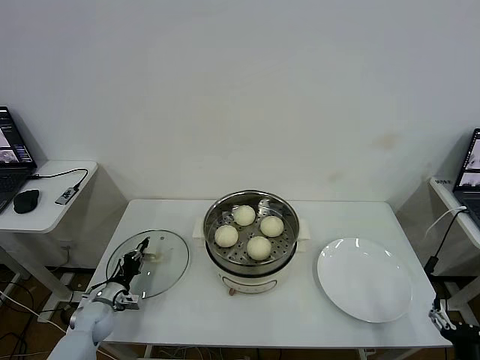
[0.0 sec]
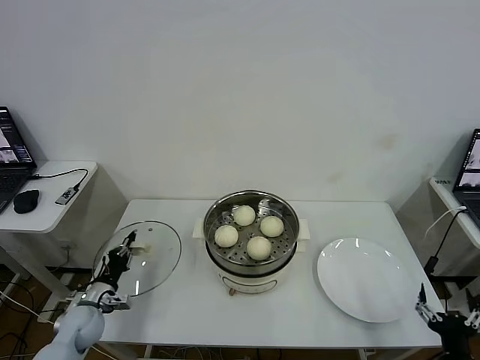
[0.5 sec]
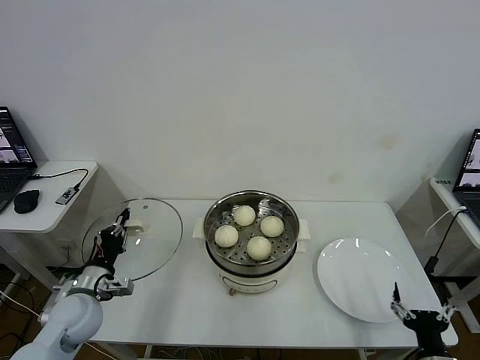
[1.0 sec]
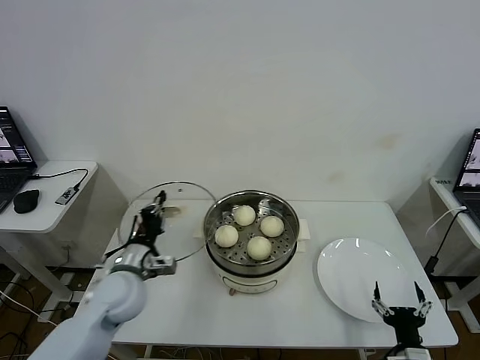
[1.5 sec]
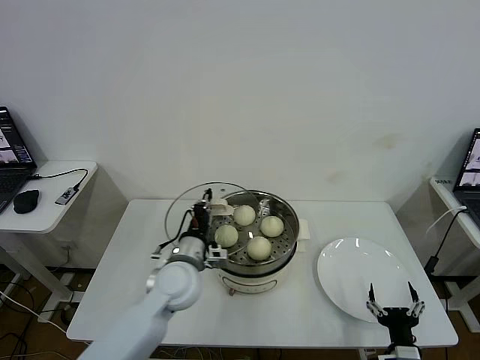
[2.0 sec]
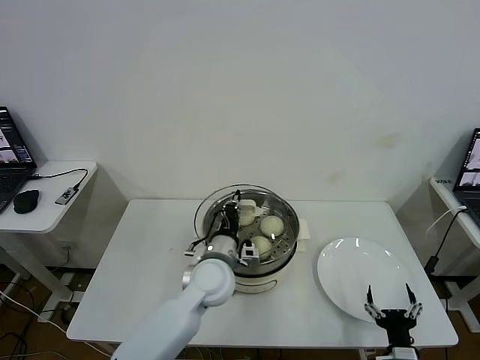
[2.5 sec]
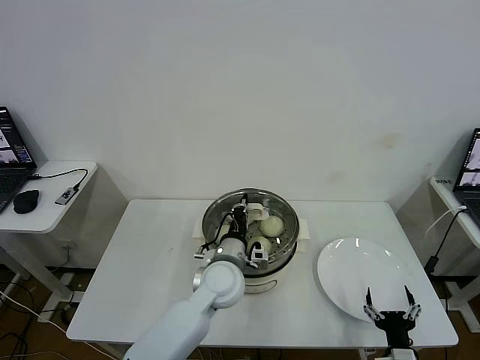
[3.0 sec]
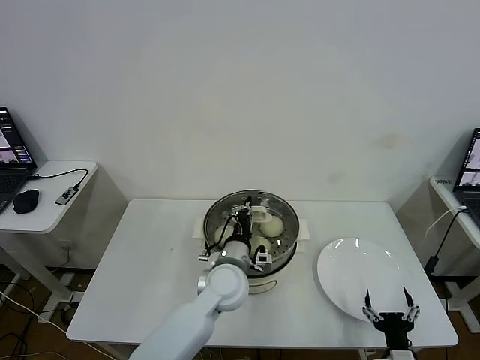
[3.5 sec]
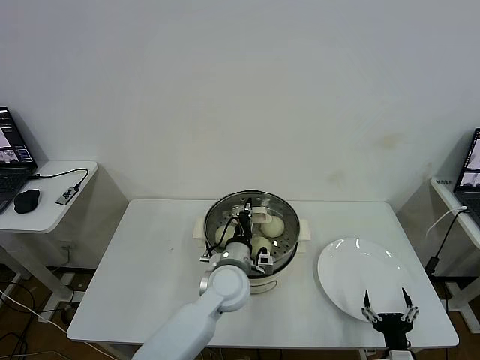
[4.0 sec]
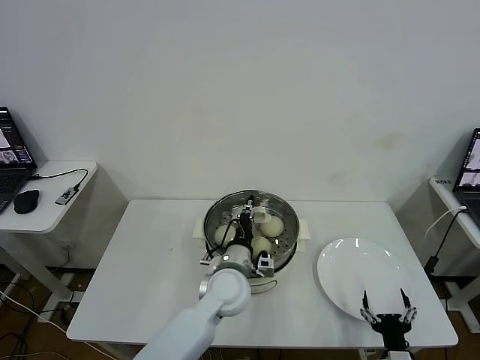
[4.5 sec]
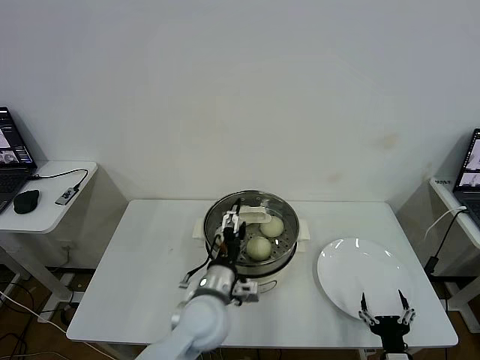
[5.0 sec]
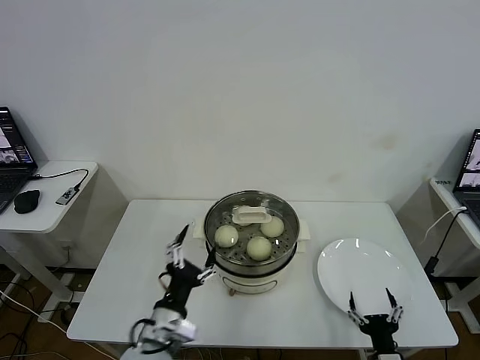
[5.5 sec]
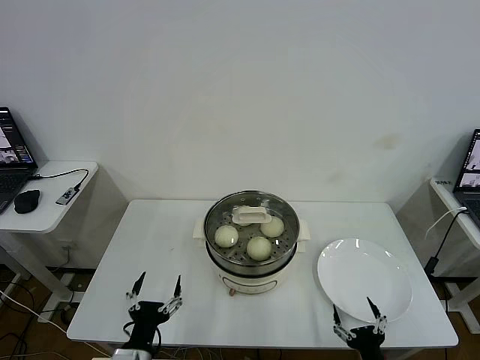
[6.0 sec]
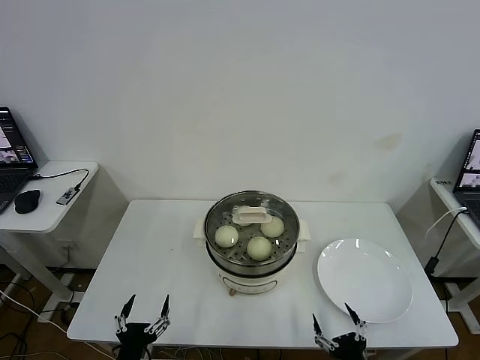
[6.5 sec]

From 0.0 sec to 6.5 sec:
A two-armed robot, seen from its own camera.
Task of the whole recording: take steamed baozi put them in steamer then cover it.
Step, from 0.5 sec to 4.5 sec: Place the pot lid on the steamer with left gripper.
From 0.0 sec to 2.0 sec: The right gripper goes roughly 5 cm to the left. Meanwhile the left gripper shifts approximately 35 cm to the right and upward.
From 2.0 sec to 4.5 sec: The left gripper heads to the right, covering some 10 cm.
From 4.5 sec to 6.5 sec: The left gripper shifts approximately 30 cm backward and to the left, and opens up. Meanwhile the right gripper shifts some 5 cm to the left.

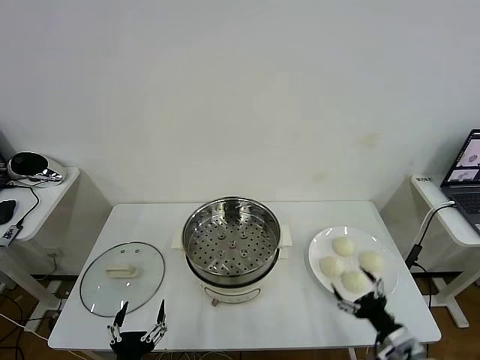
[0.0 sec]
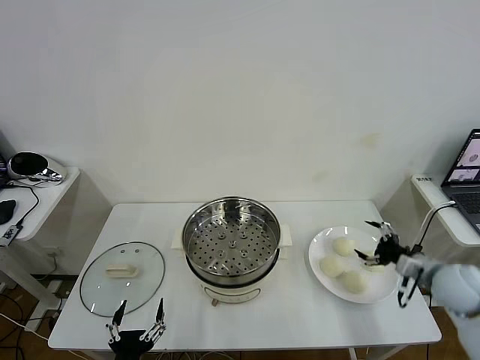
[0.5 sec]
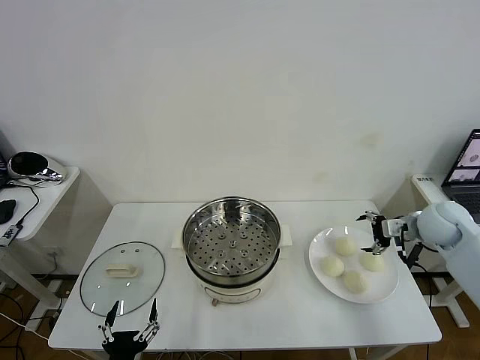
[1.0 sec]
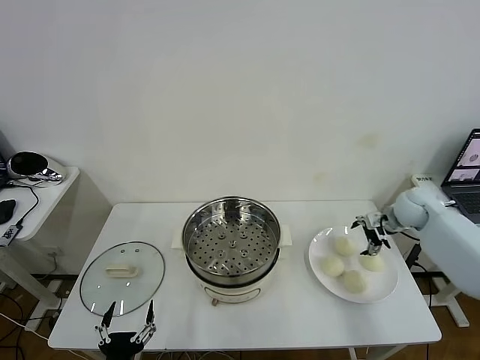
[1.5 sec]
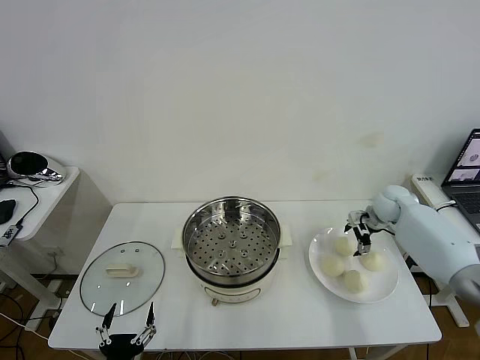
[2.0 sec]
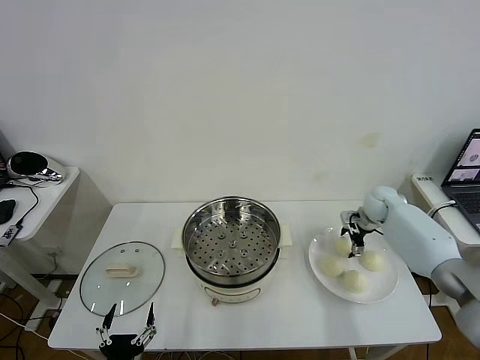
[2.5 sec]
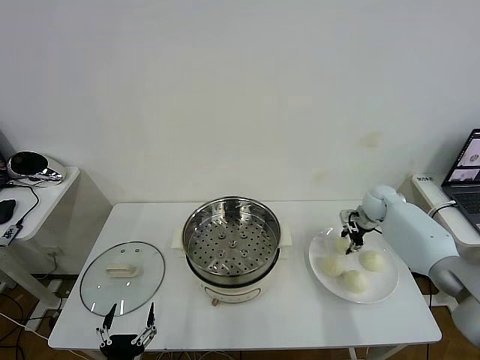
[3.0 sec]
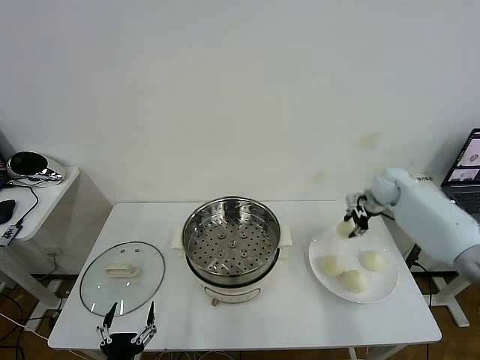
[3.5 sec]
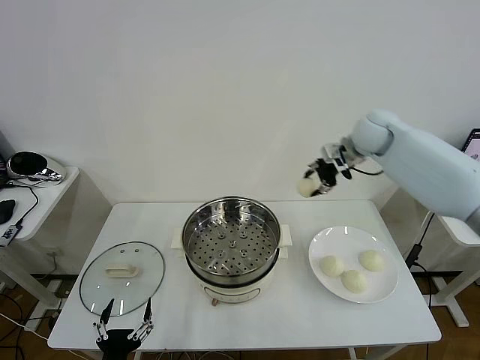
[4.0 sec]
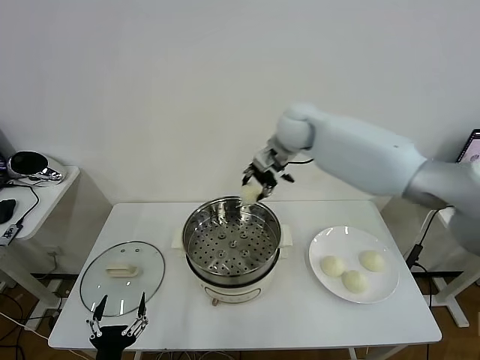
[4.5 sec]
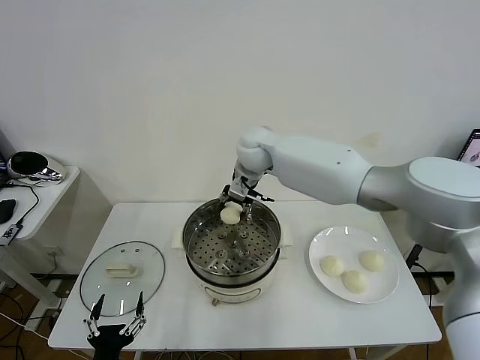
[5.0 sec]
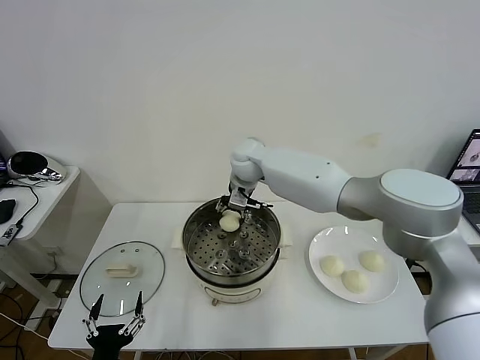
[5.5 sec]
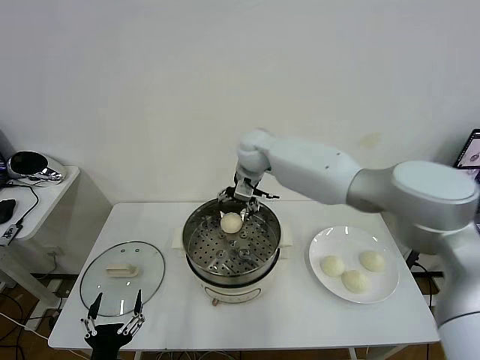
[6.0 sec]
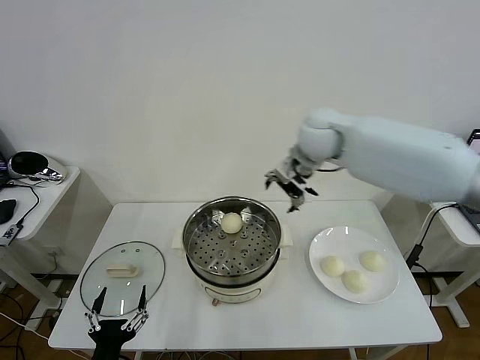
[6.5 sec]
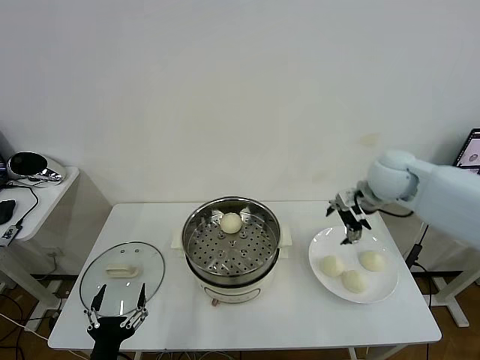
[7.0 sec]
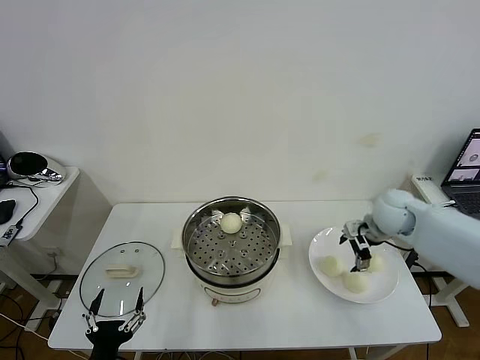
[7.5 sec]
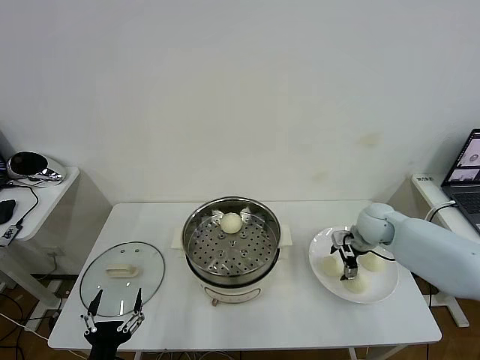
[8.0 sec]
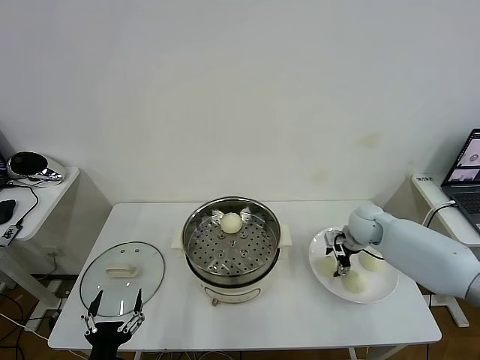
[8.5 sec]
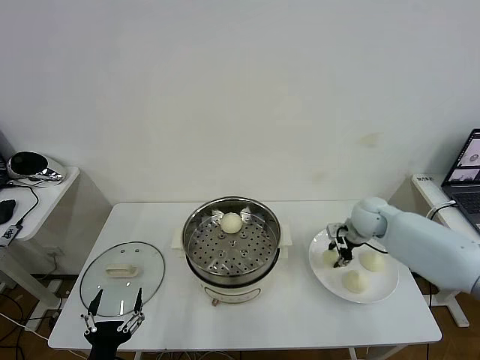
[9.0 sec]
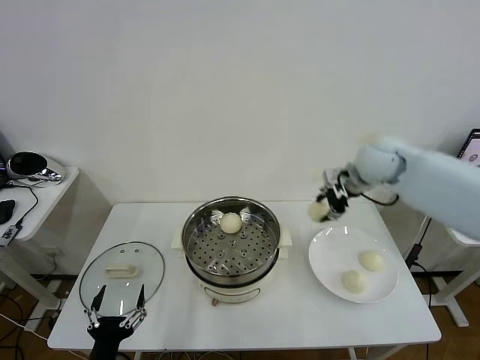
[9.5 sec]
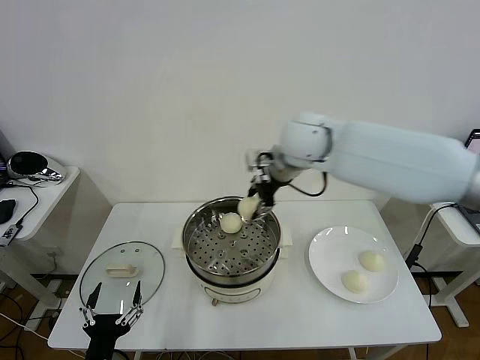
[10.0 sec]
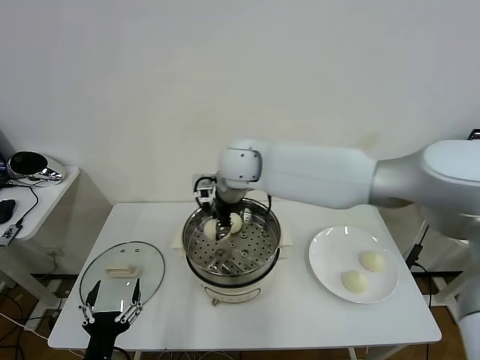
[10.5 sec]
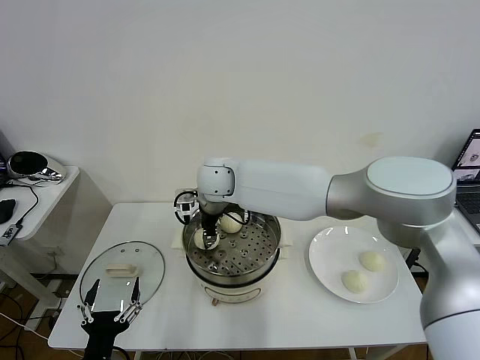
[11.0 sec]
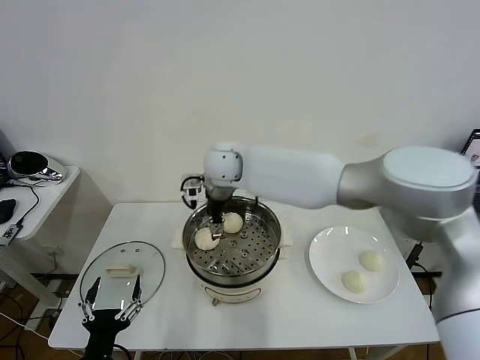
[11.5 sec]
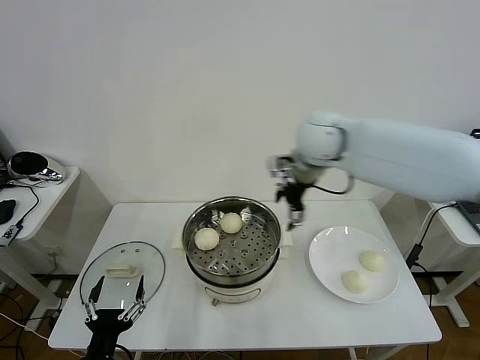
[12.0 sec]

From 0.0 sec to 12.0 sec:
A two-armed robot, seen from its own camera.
Task of the whole recording: take steamed baozi put them in steamer then cover it.
Step, from 0.0 sec to 2.5 sec: Grasp the baozi in the plate with right gripper.
Step, from 3.0 sec to 5.5 sec: Place the baozi on the steamer with right gripper.
Step, from 6.0 sec to 8.5 sec: Grasp the baozi in the plate with right gripper.
Step, from 9.0 sec to 11.0 sec: Place the baozi on the steamer with right gripper.
From 2.0 sec to 4.0 sec: The right gripper moves upward and to the left, approximately 30 cm, and closes.
From 4.0 sec to 6.0 sec: The right gripper shifts some 20 cm to the left, and opens.
From 6.0 sec to 8.0 sec: The right gripper travels to the right and downward by about 35 cm.
From 8.0 sec to 10.0 sec: The right gripper moves to the left and upward, roughly 35 cm, and closes its fingers.
From 10.0 sec to 12.0 sec: The right gripper is displaced to the right by about 10 cm, and opens its fingers.

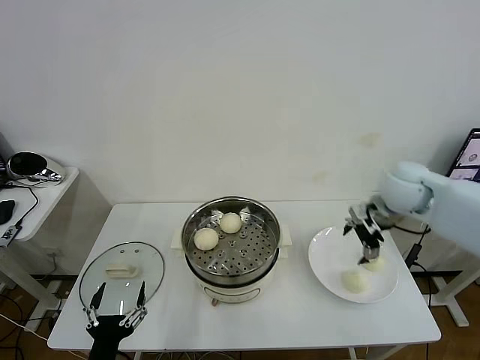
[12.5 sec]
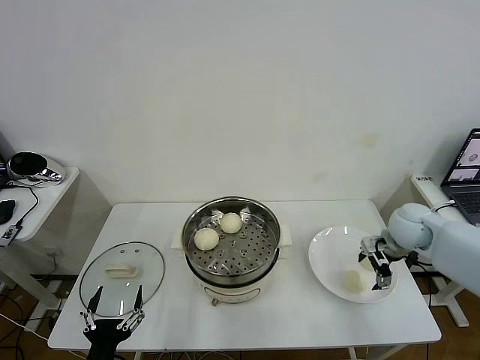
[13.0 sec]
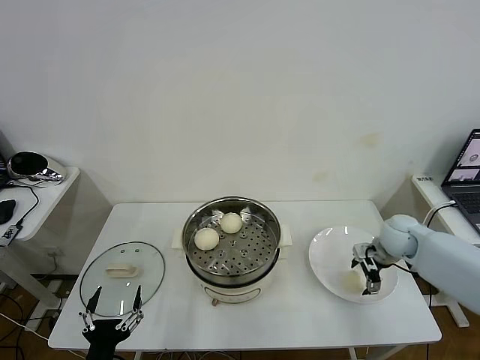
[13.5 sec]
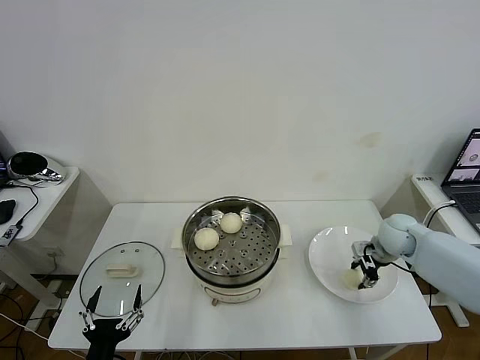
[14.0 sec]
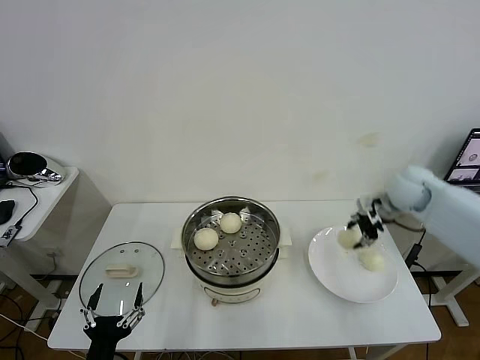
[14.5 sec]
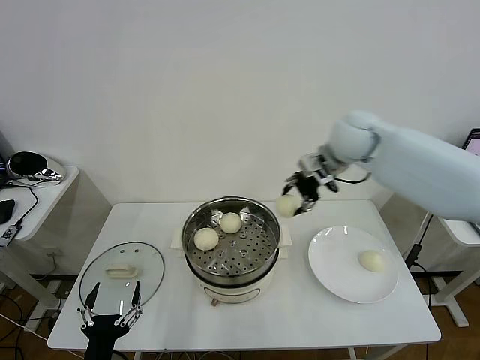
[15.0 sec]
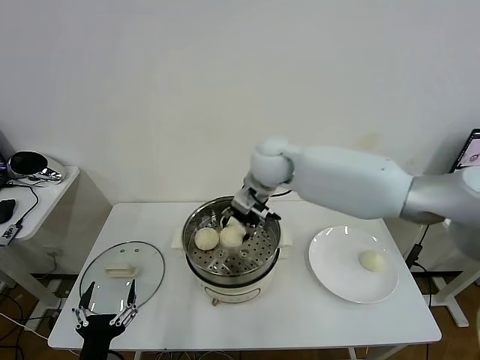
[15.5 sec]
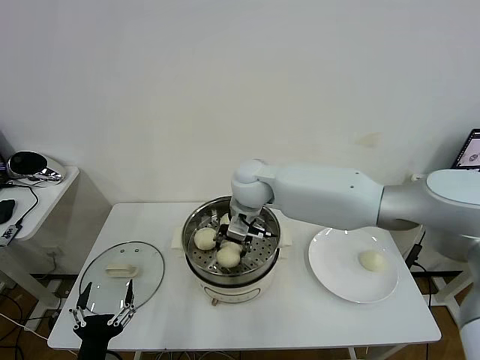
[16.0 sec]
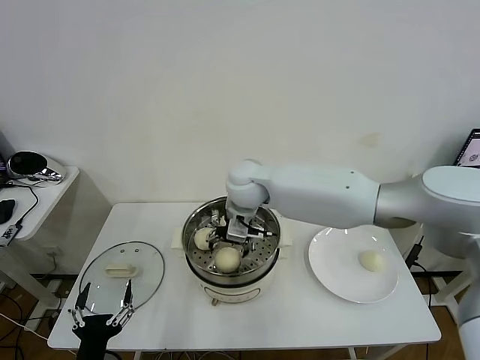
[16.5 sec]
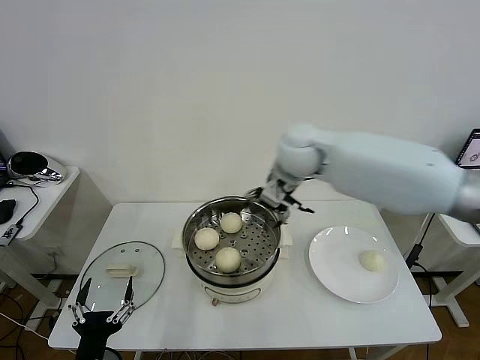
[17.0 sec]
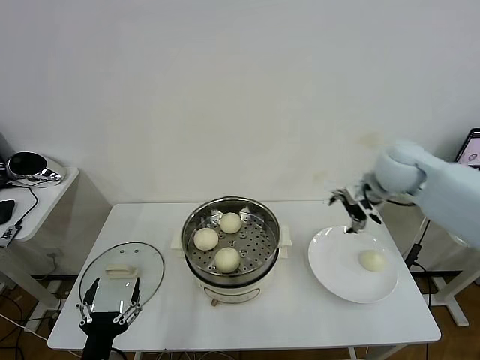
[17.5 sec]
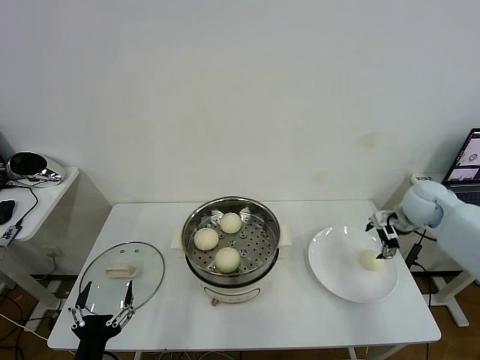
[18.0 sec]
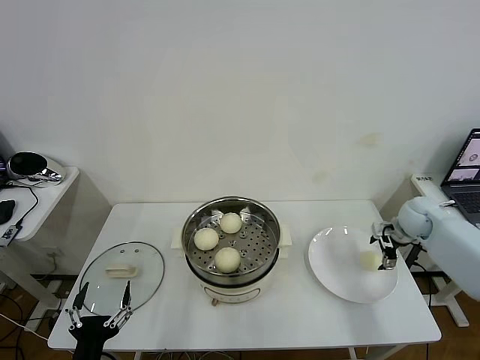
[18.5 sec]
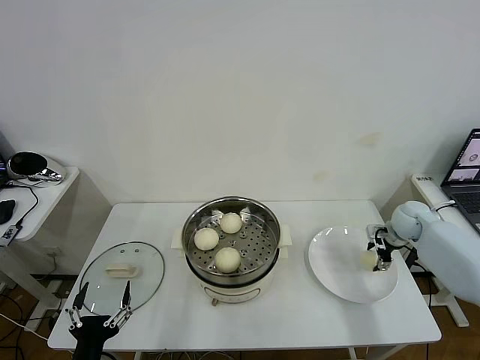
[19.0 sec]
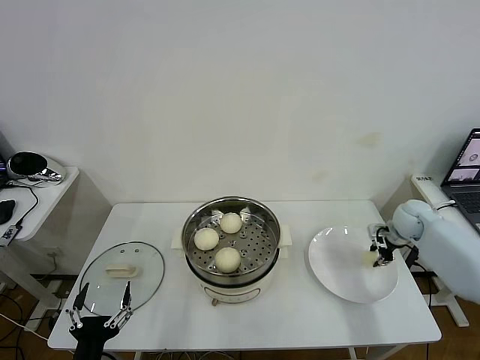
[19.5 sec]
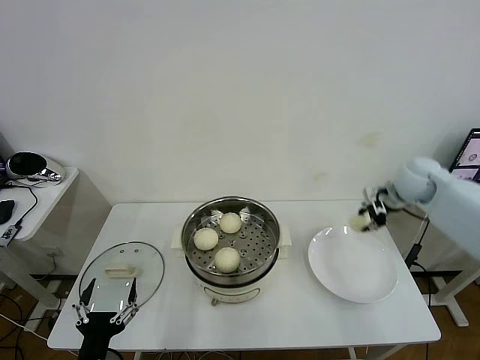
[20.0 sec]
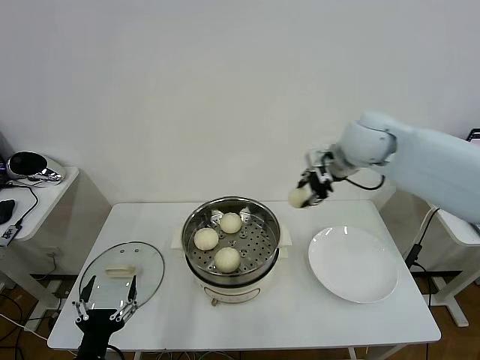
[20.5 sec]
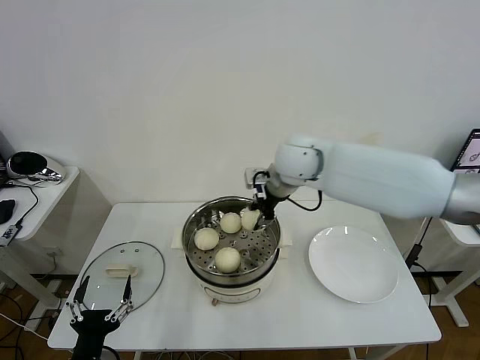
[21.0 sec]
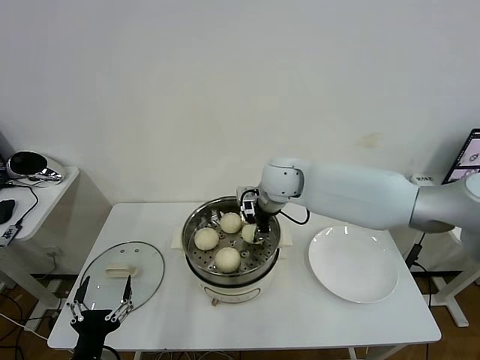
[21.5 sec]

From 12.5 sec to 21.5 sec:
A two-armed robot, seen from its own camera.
Task of the whole recording: take steamed baozi put them in steamer then cover it.
Step, from 12.5 sec to 14.0 sec: Grasp the baozi in the plate with right gripper.
Step, from 14.5 sec to 16.5 sec: Place the baozi on the steamer with right gripper.
Step, from 17.0 sec to 19.0 sec: Grasp the baozi in the plate with right gripper.
From 12.5 sec to 14.5 sec: The right gripper heads forward, covering roughly 5 cm, goes downward and returns, some 15 cm each way, and closes its fingers.
From 14.5 sec to 17.0 sec: The right gripper heads to the left, covering about 25 cm, and opens its fingers.
From 17.0 sec to 19.5 sec: The right gripper moves to the right and downward, some 40 cm, and closes its fingers.
From 19.5 sec to 21.5 sec: The right gripper goes approximately 35 cm to the left.
